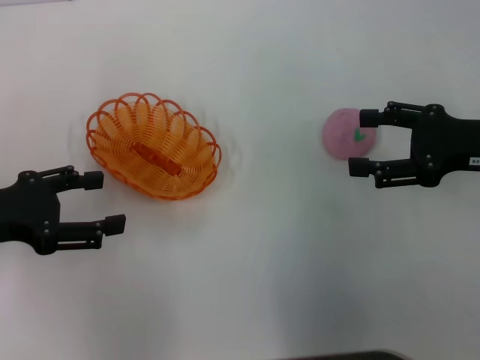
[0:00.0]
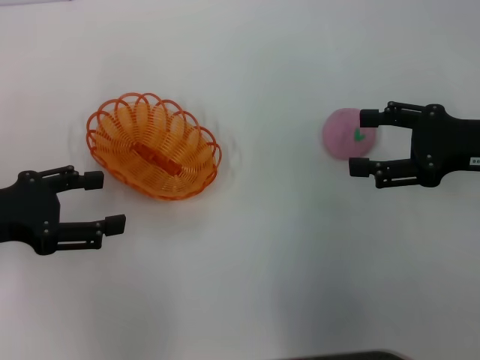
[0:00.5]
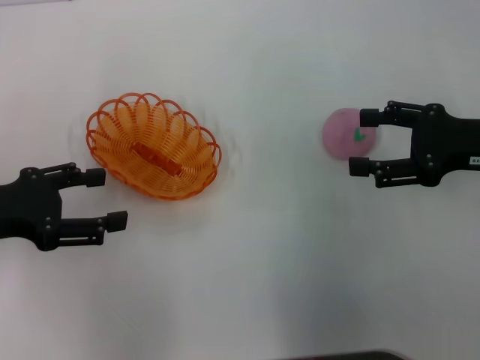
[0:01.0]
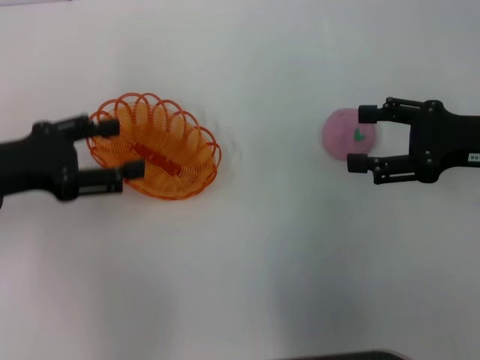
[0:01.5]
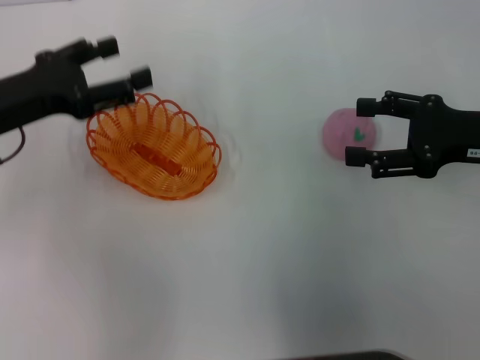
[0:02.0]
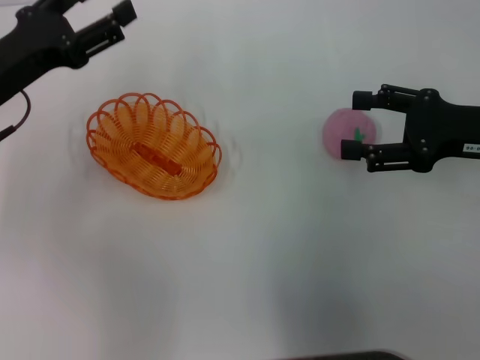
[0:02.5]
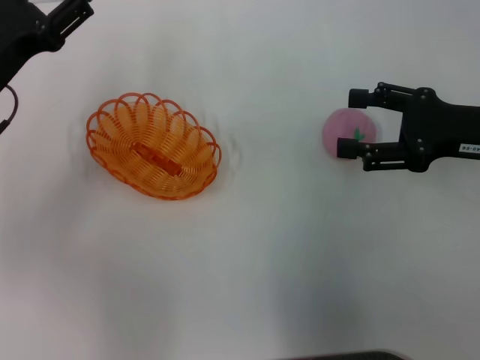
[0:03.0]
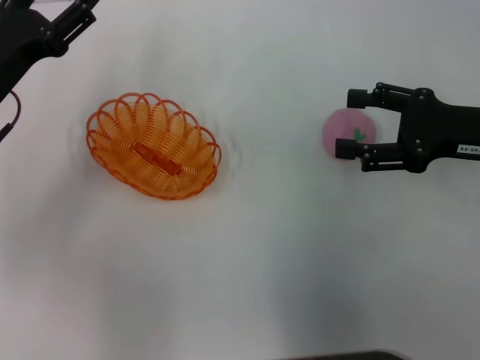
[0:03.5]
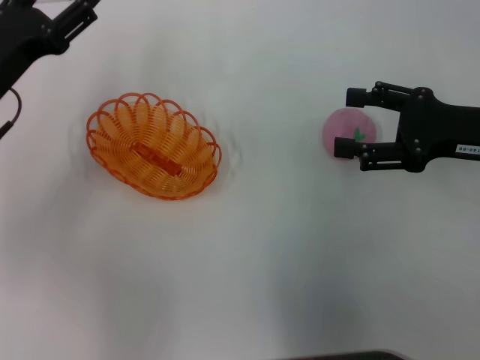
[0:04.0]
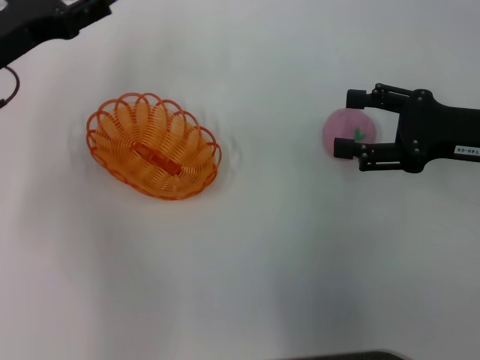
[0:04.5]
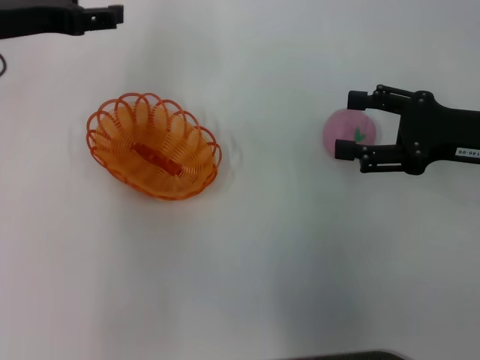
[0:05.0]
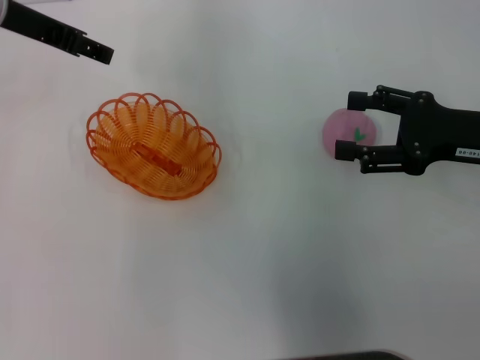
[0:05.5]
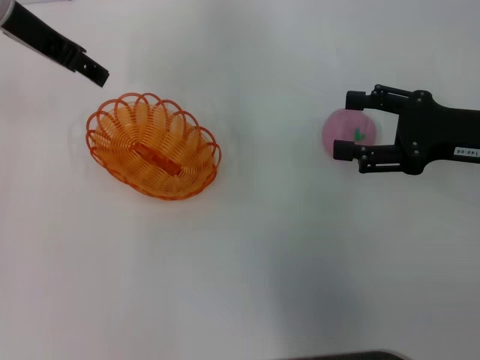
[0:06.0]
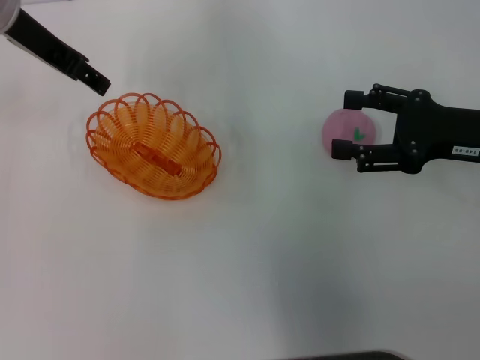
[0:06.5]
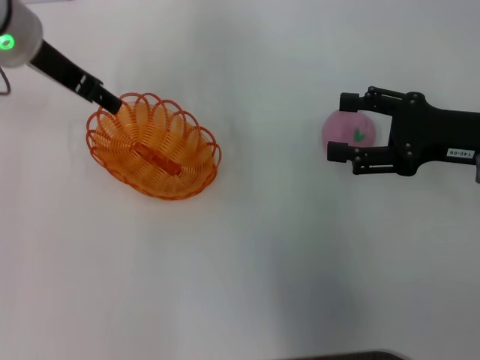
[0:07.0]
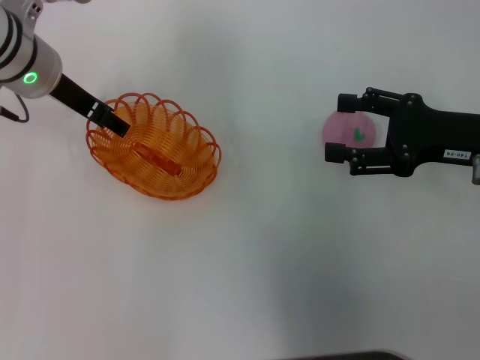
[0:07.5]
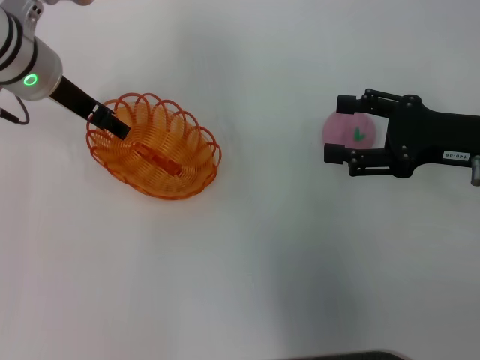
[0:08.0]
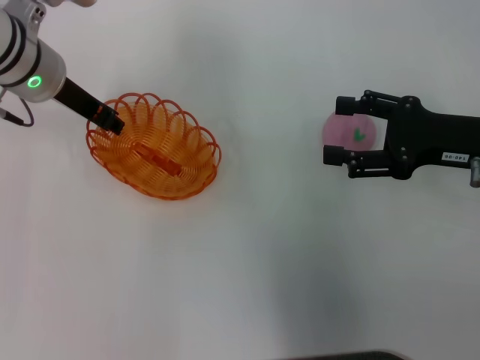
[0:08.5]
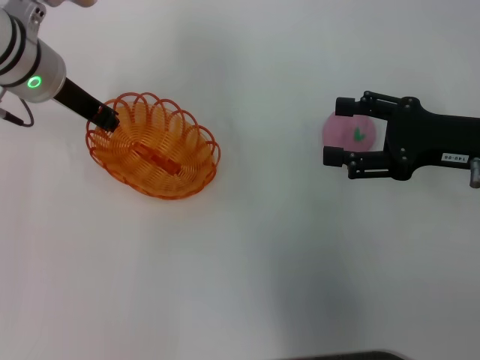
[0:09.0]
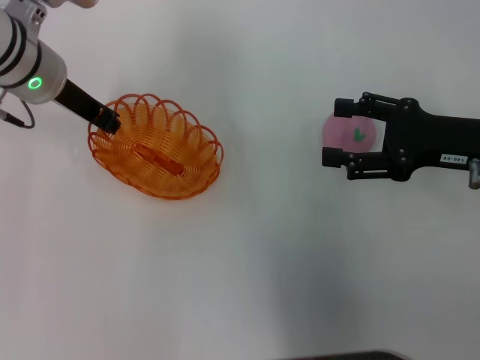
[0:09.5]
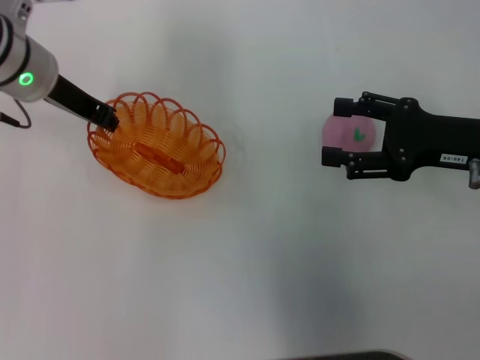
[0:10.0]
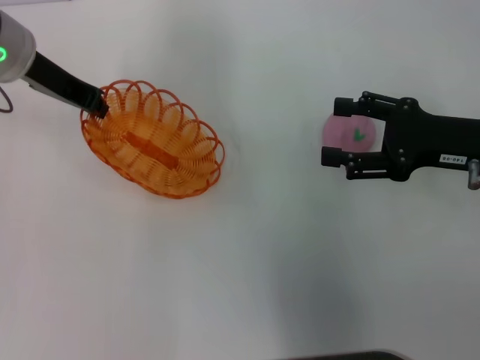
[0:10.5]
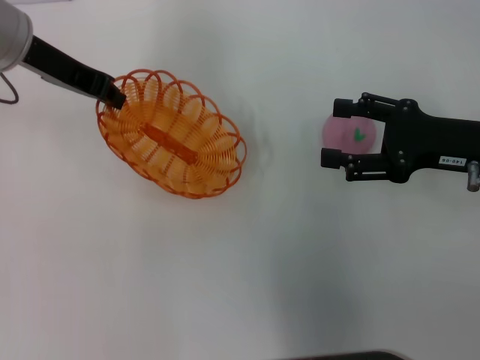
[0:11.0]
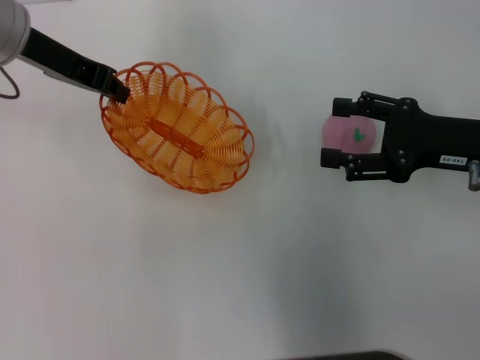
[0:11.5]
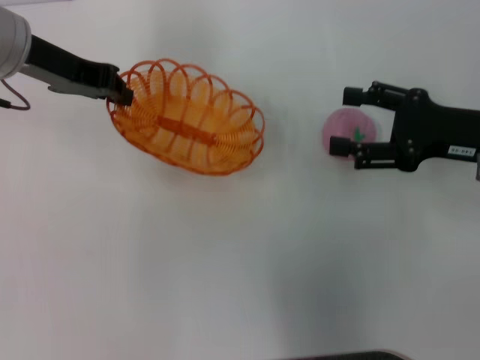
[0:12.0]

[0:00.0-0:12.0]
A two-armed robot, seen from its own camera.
Step, 0:00.0 to 0:10.5: Pick up the basket with the left gripper.
0:00.0 to 0:02.0: The left gripper is displaced forward by approximately 5 cm.
0:04.0 to 0:06.0: The left gripper travels upward, forward and to the right by about 15 cm.
0:06.0 to 0:08.0: The left gripper goes some 10 cm downward.
0:08.0 to 0:10.0: The left gripper closes up.

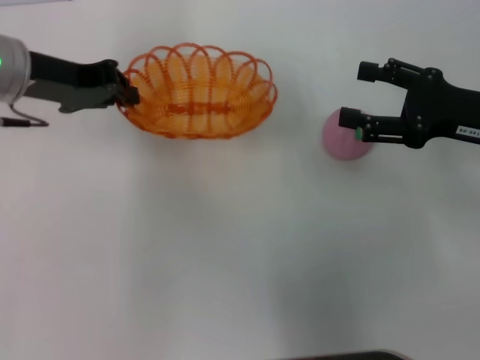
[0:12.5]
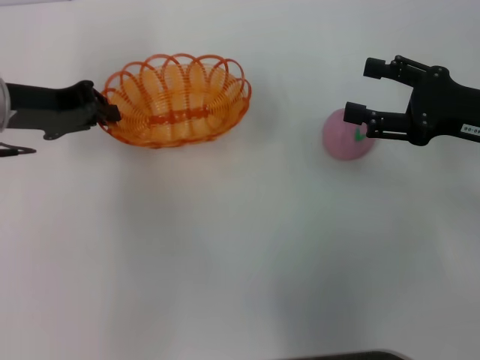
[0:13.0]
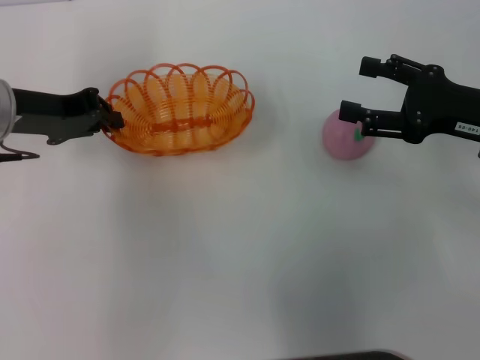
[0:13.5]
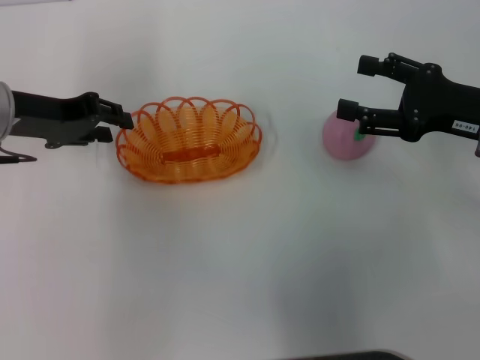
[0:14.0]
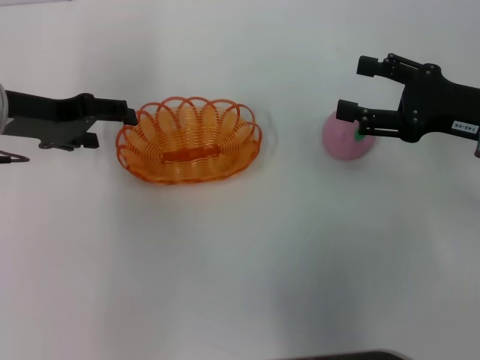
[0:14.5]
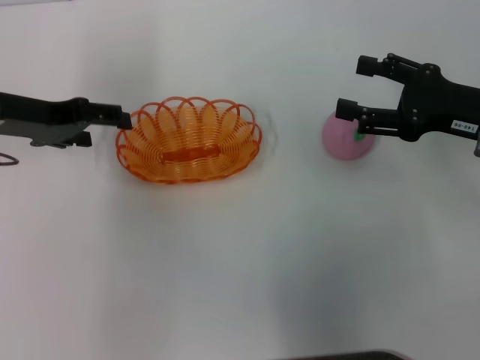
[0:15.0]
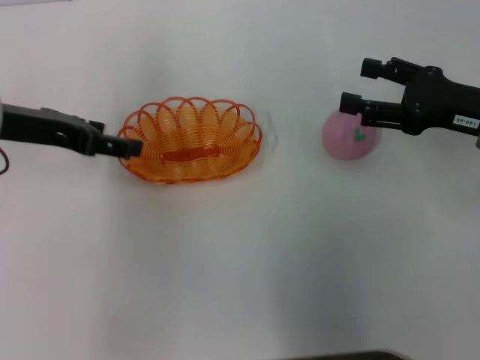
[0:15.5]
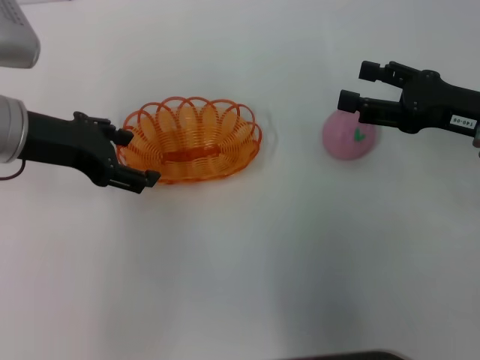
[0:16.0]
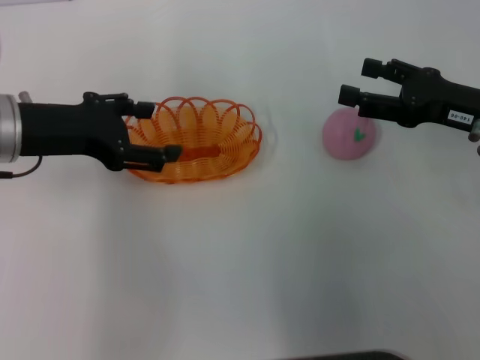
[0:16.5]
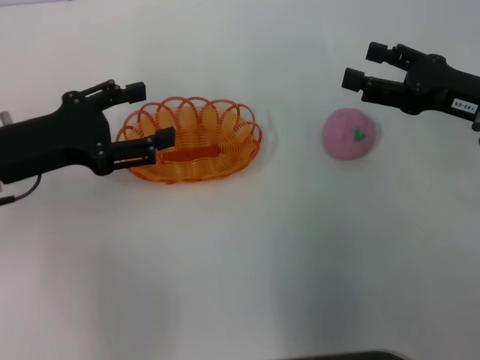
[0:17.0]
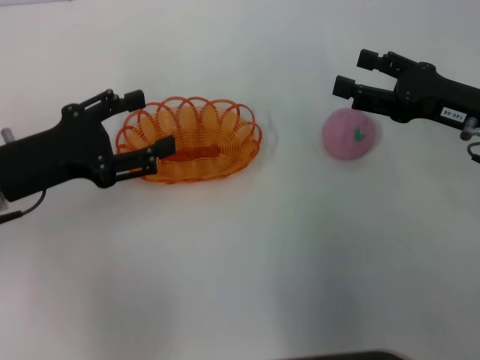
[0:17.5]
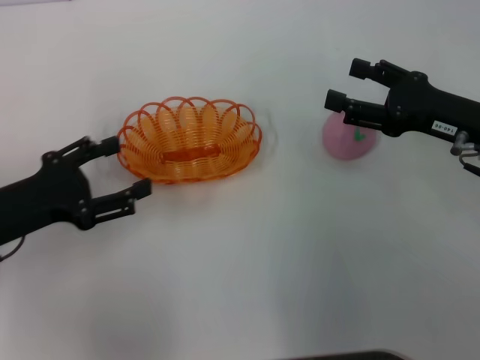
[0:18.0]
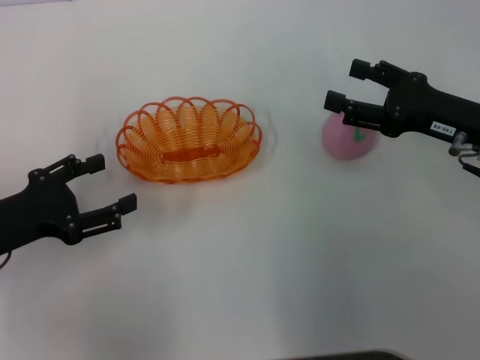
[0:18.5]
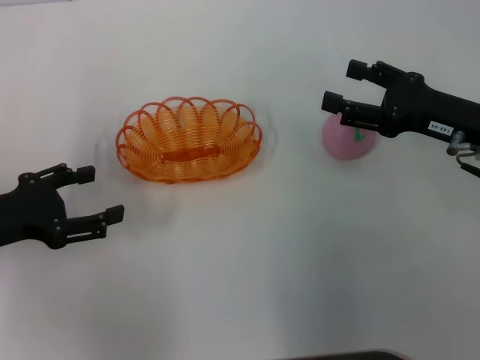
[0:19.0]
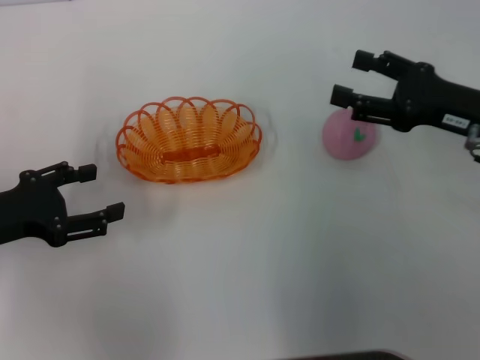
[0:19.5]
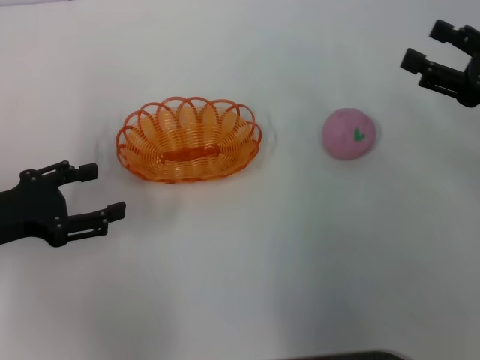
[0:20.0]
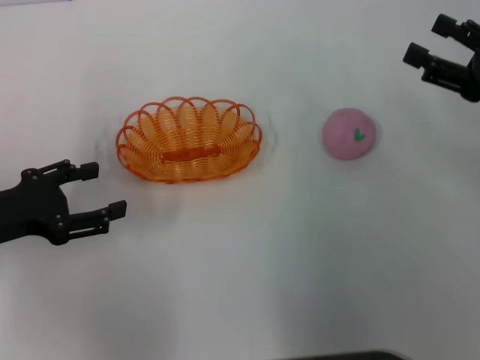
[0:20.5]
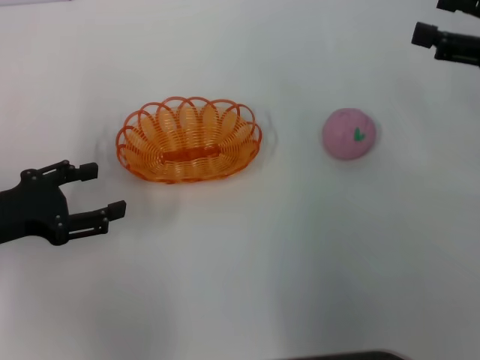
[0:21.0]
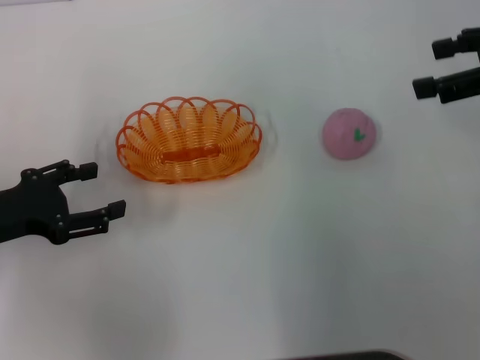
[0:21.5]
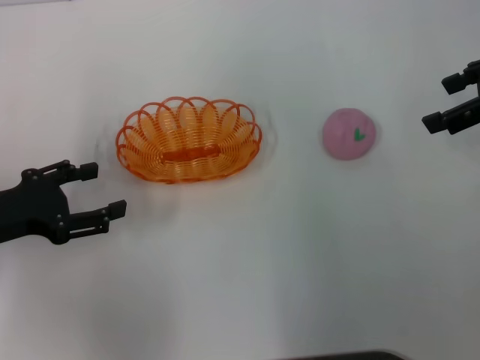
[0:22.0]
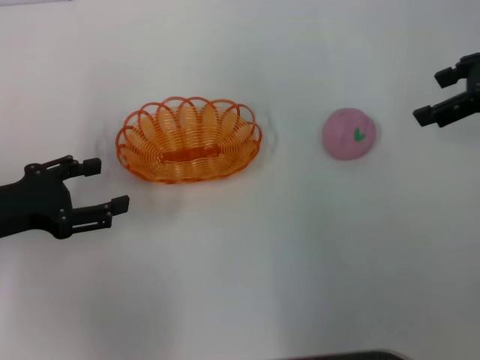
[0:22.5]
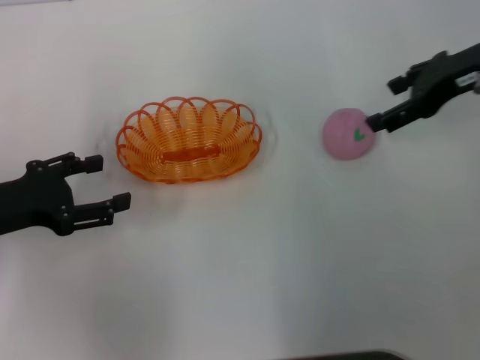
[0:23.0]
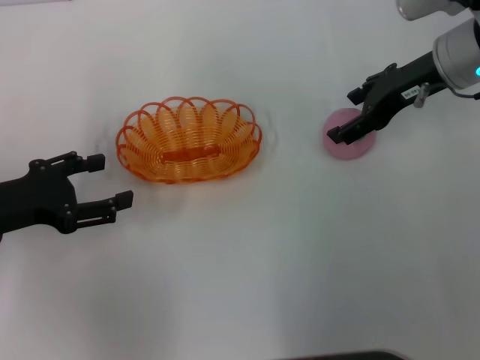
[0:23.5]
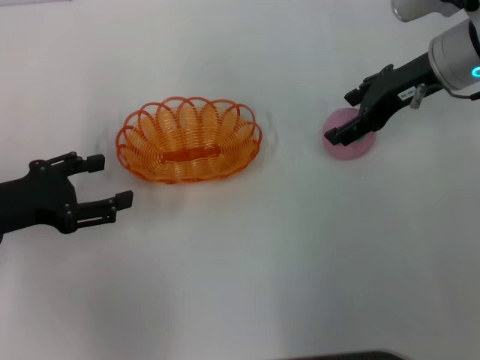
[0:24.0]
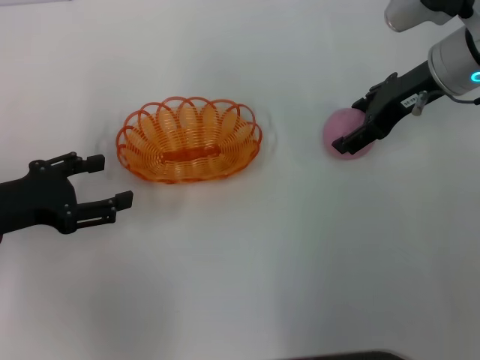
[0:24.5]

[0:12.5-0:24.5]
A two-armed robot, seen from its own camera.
0:12.5 to 0:14.5: The left gripper opens up.
0:16.5 to 0:18.5: The left gripper travels backward, downward and to the left by some 15 cm.
0:18.5 to 0:20.5: The right gripper heads to the right, covering approximately 5 cm.
0:20.5 to 0:22.5: The right gripper travels upward and forward by some 10 cm.
0:22.5 to 0:24.5: The right gripper moves to the left and downward, some 10 cm.

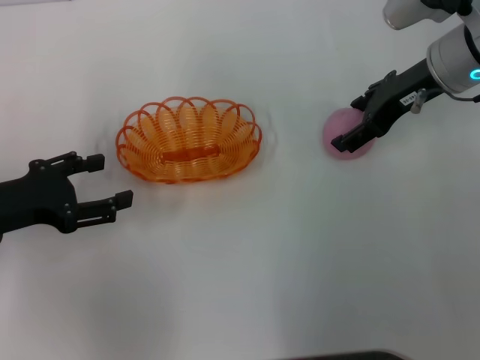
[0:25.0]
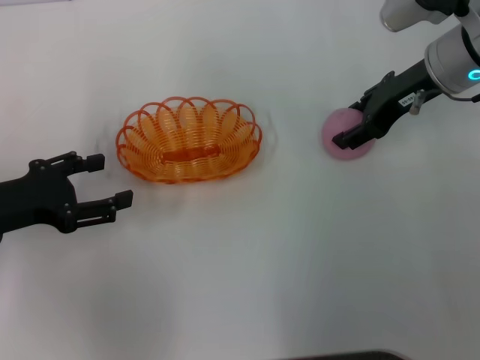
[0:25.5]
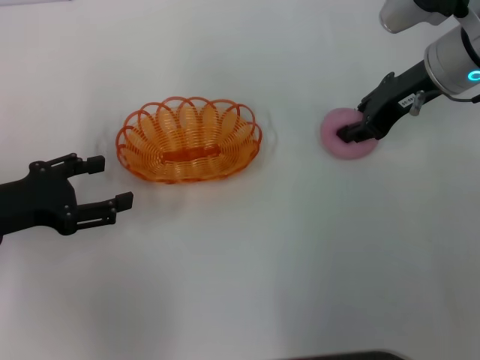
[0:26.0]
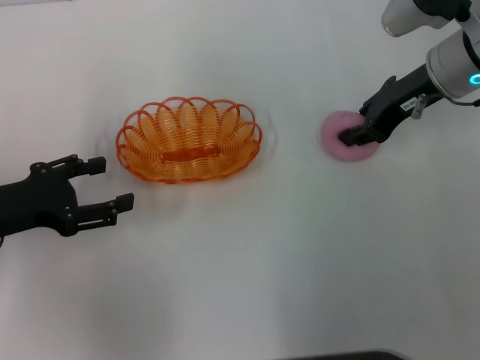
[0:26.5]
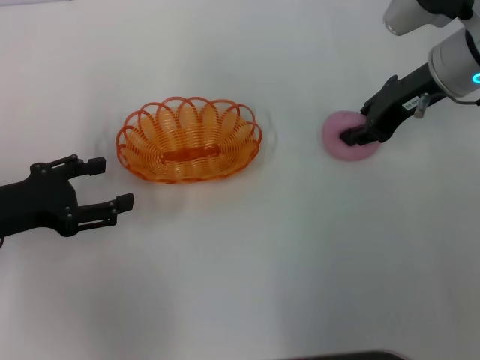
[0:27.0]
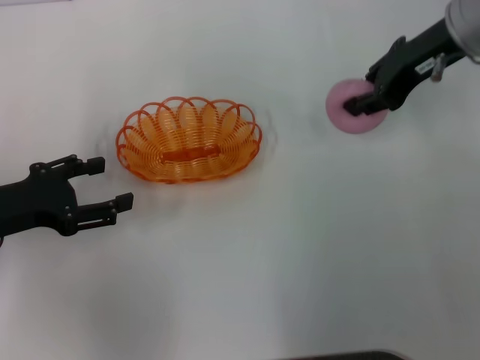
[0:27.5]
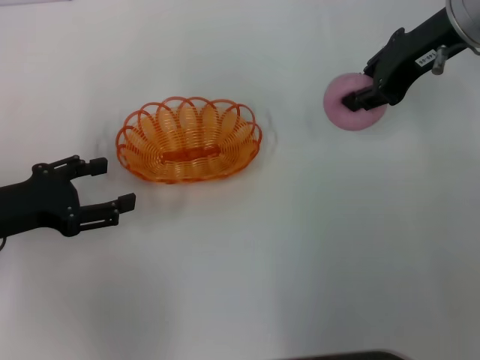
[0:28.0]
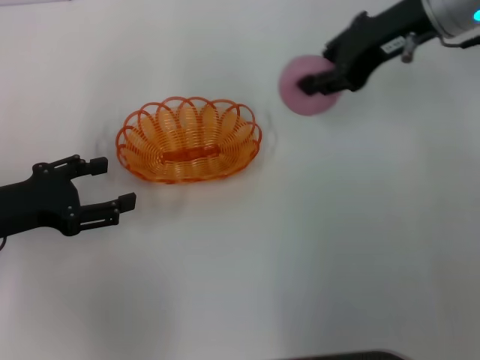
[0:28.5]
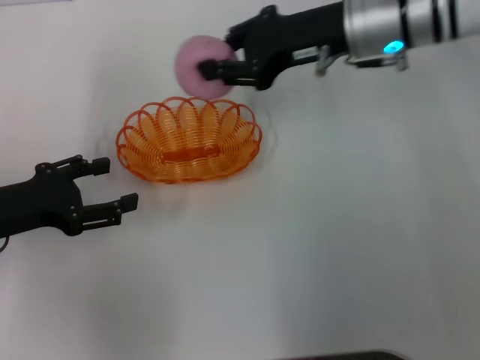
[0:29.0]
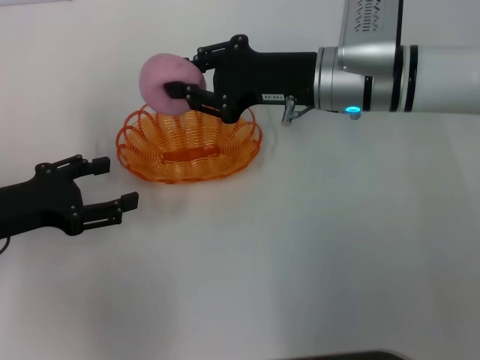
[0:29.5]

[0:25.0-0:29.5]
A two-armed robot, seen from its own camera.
Step, 0:25.0 to 0:28.0: Pick up the peach with the right gripper.
0:25.0 to 0:27.0: The right gripper closes its fingers.
0:27.0 to 0:29.5: The right gripper heads to the left, covering approximately 10 cm, and travels upward and back again, about 5 cm each way.
